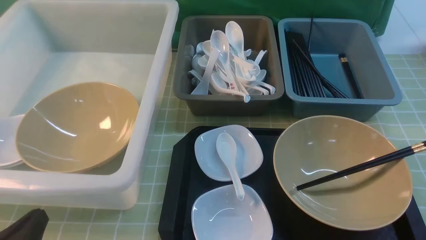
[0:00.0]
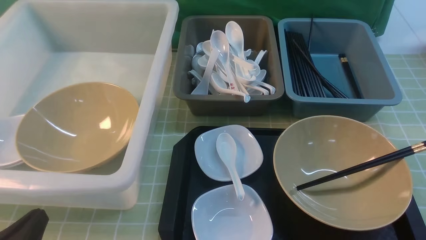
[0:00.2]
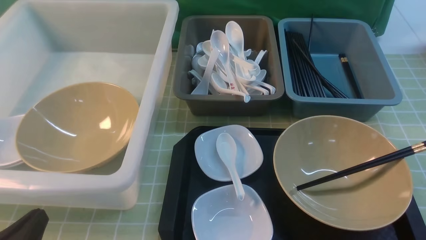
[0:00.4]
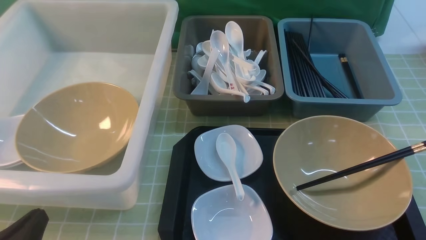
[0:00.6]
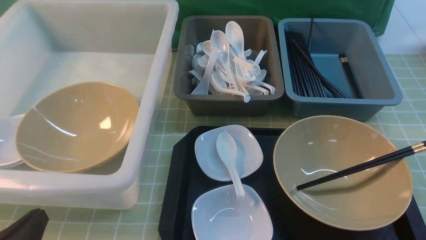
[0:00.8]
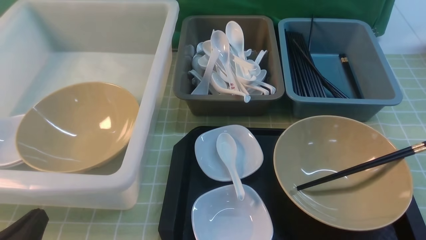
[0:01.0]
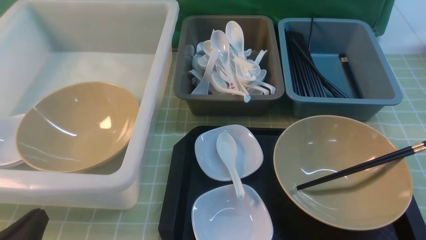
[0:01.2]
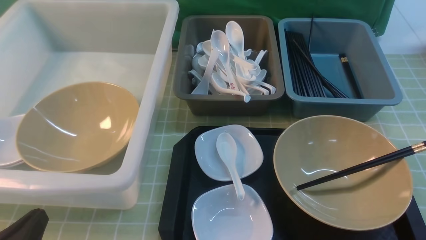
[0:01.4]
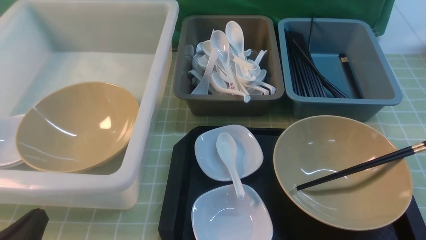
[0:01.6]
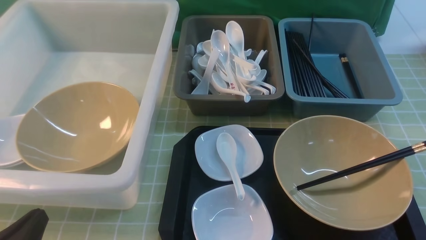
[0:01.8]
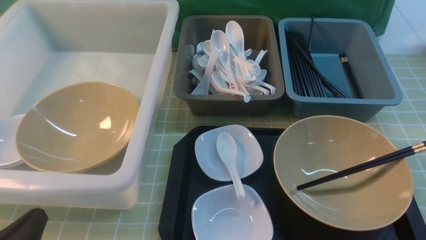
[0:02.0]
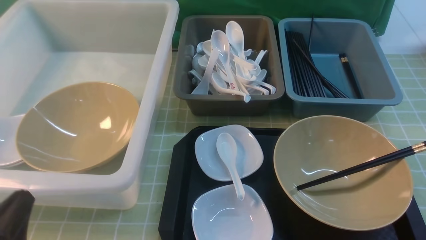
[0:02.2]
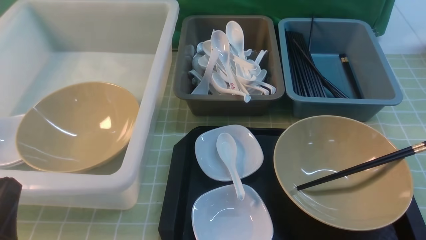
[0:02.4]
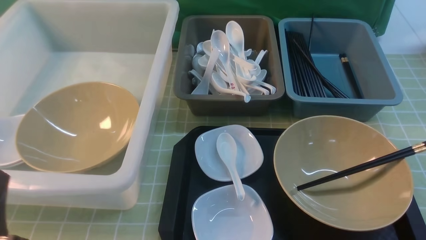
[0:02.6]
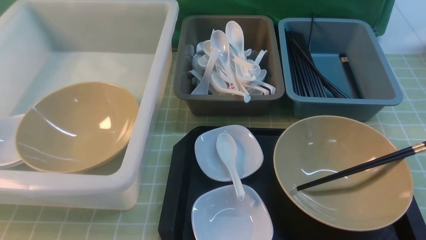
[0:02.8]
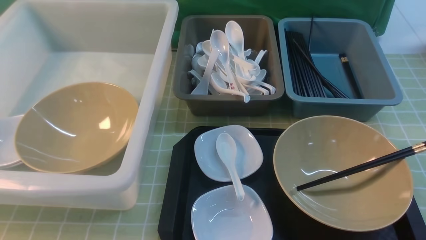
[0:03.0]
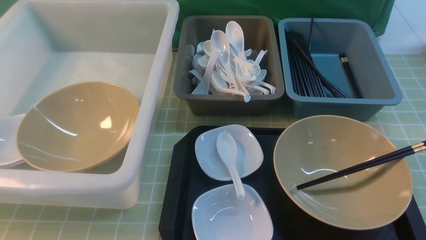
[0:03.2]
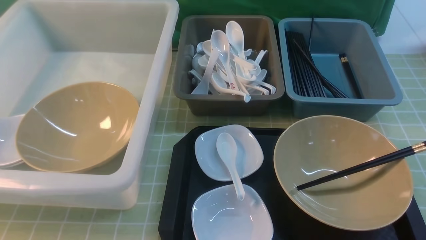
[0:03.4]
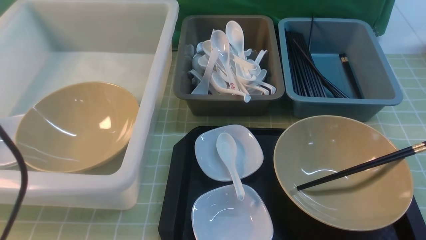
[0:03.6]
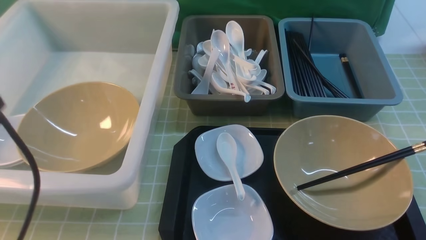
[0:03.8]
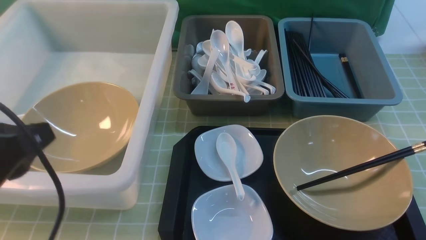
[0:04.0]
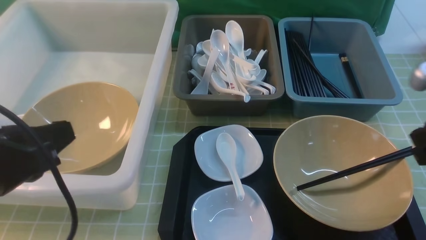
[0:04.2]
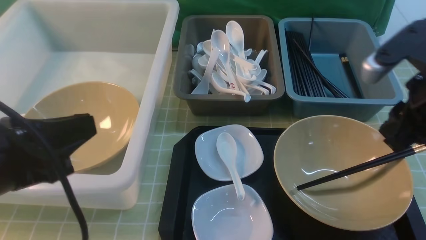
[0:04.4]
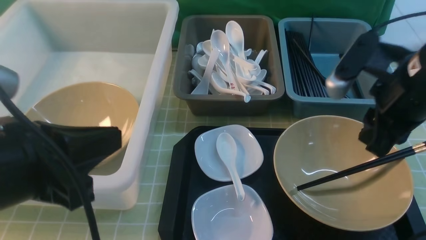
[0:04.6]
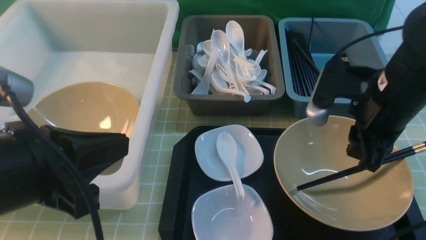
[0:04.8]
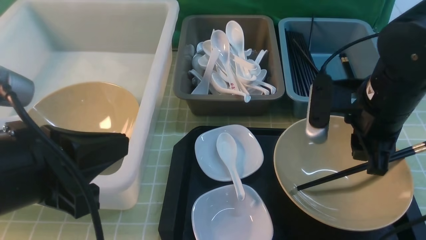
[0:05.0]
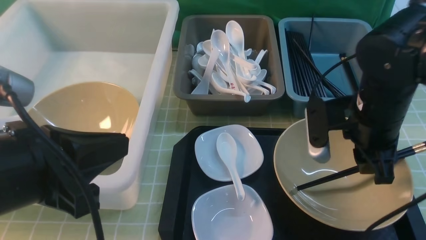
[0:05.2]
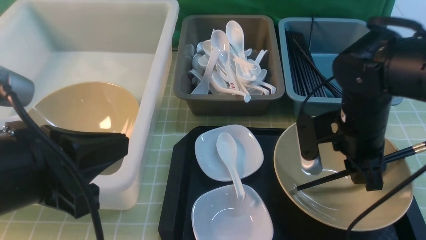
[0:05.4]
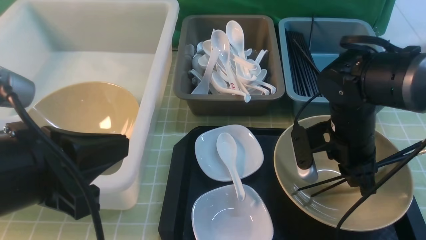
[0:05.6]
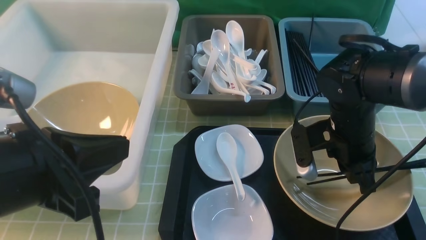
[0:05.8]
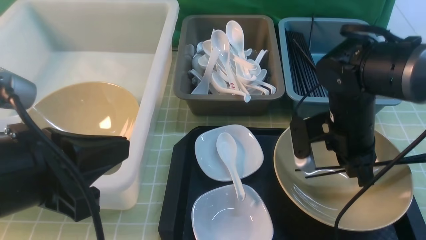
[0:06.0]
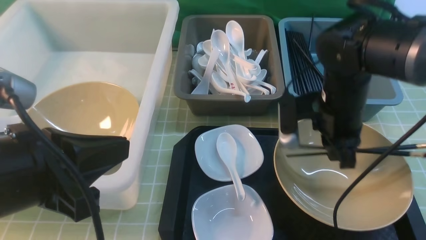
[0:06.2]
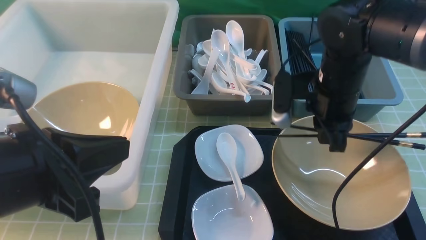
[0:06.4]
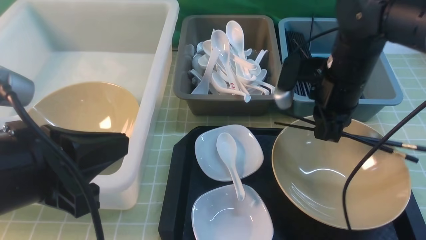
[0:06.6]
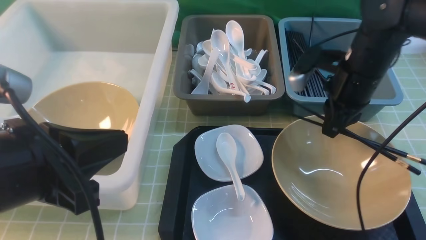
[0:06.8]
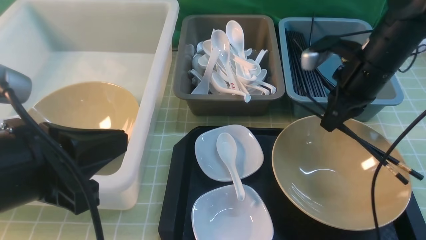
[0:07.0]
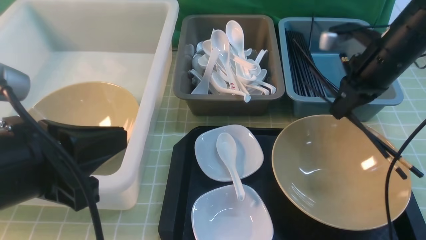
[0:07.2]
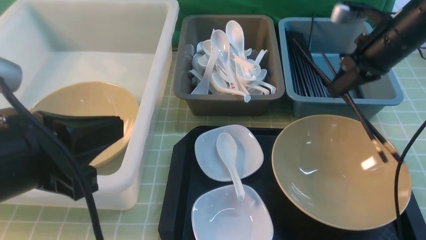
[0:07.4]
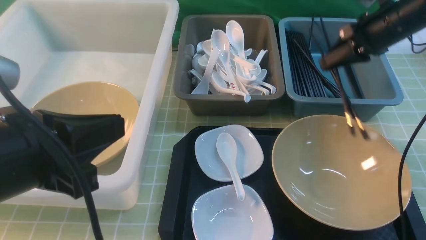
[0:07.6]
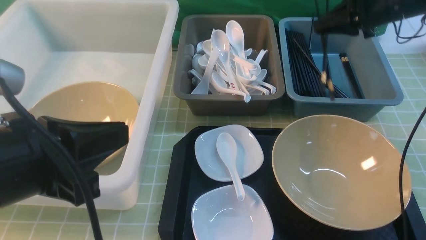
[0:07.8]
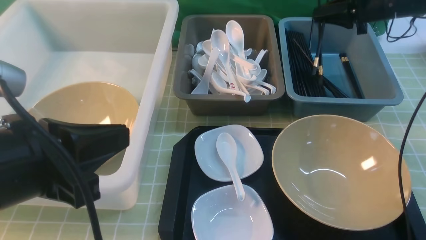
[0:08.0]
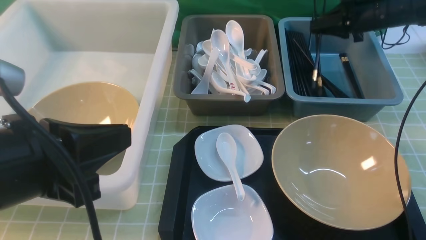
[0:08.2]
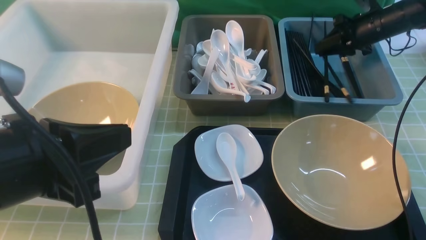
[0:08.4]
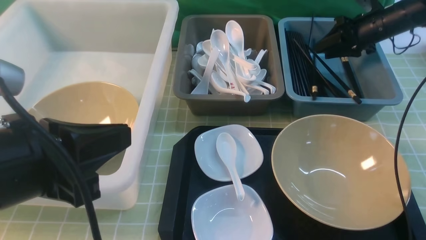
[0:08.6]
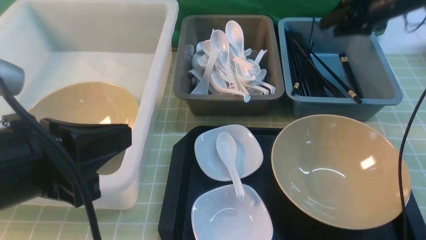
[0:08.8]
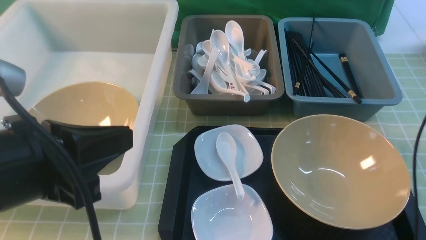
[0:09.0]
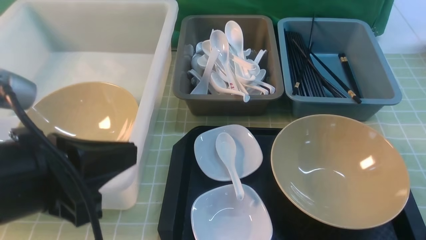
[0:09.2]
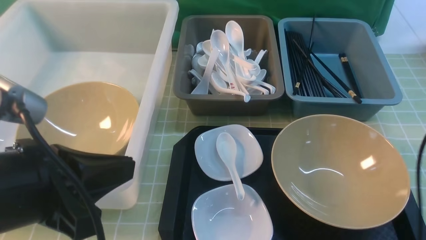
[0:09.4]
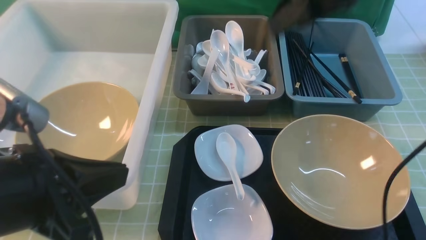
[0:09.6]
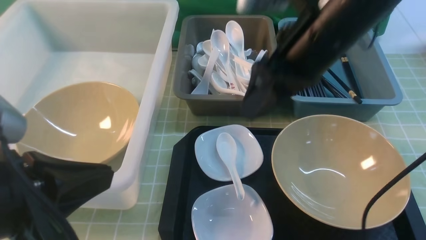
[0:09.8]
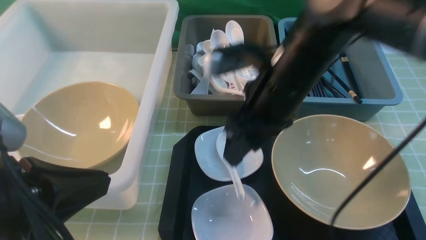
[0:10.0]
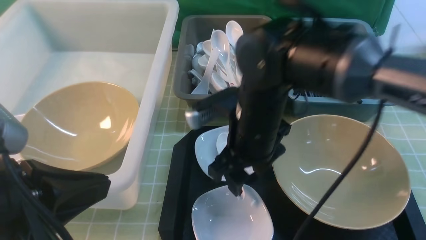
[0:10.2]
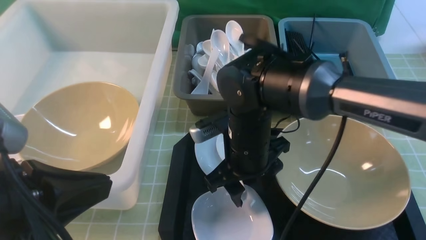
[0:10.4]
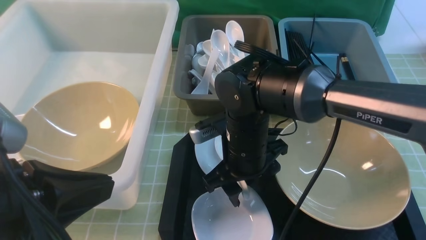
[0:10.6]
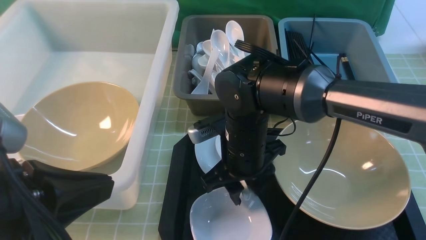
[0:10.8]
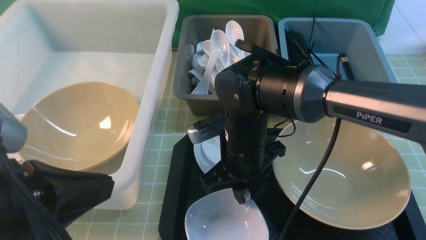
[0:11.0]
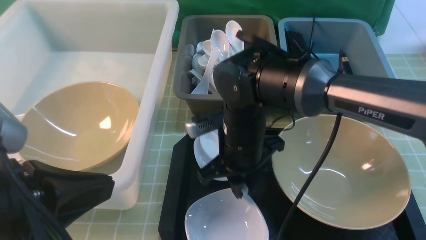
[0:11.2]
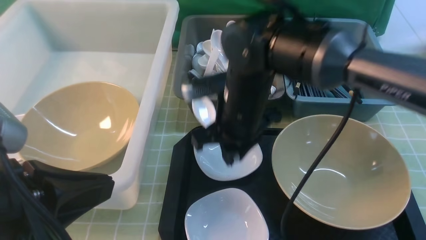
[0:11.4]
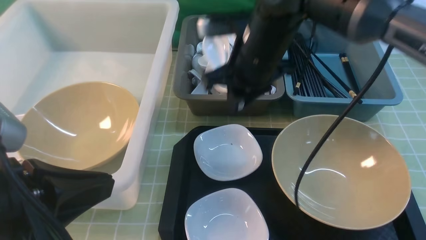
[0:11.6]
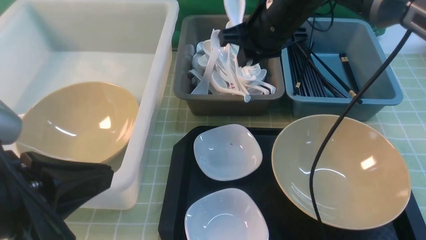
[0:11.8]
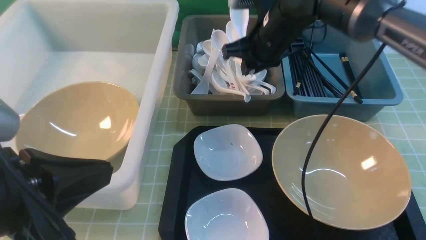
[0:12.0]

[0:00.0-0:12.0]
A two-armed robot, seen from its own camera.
Task of the whole recording: on green table put chopsticks spoon bowls plates into blue grey white boxes.
Step, 0:00.0 to 0:07.4: use the right arm to grab the chopsticks.
Step, 0:07.6 to 0:09.0: use the right arm to put the chopsticks into the small storage box on the right.
Step, 0:09.2 to 0:11.2: use the right arm to grab the soup spoon in the middle.
0:00.0 to 0:01.6: Both grippers stay put.
0:01.6 to 0:03.0: The left gripper goes about 15 cm upward.
0:03.0 to 0:04.4: The right gripper moves forward, about 20 cm. Meanwhile the left gripper heads forward and to the right, covering about 10 cm.
0:04.4 to 0:06.0: The right gripper shifts about 15 cm downward, forward and to the left, and closes up.
0:06.0 to 0:07.6: The right gripper moves forward, to the right and upward, some 20 cm.
0:07.6 to 0:09.0: The right gripper travels upward by roughly 10 cm, and opens.
0:09.0 to 0:10.4: The right gripper moves to the left, backward and downward, some 40 cm.
0:10.4 to 0:12.0: The right gripper is displaced forward, upward and to the right by some 15 cm, and closes.

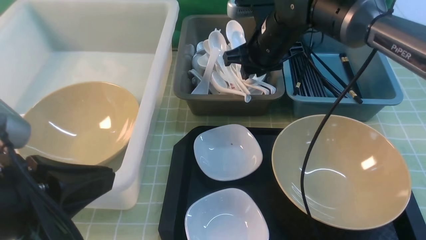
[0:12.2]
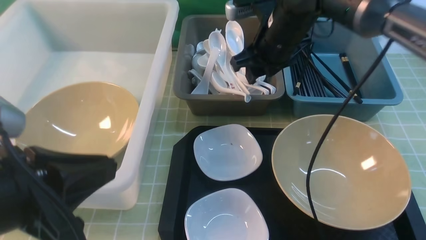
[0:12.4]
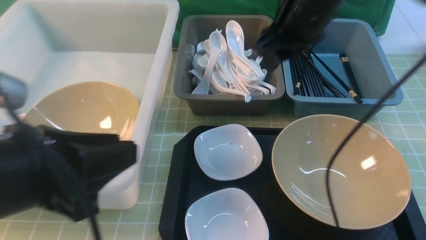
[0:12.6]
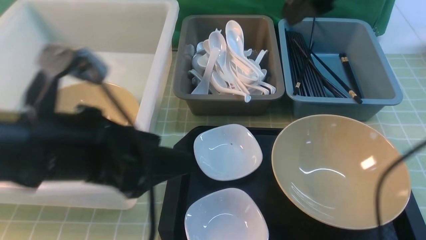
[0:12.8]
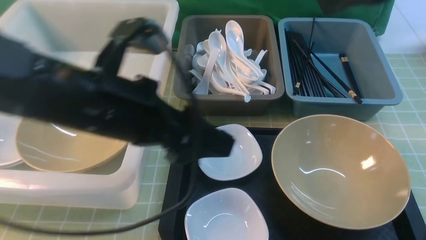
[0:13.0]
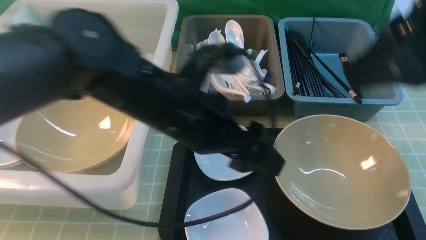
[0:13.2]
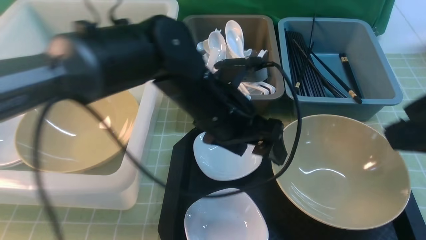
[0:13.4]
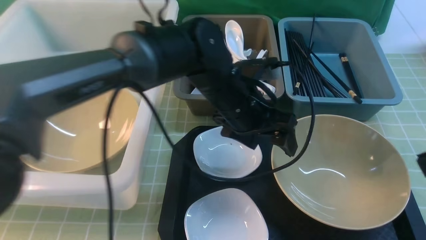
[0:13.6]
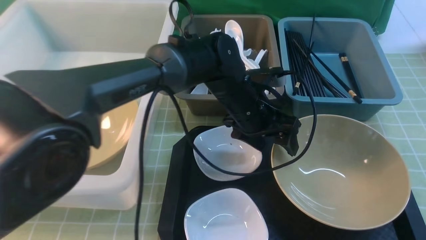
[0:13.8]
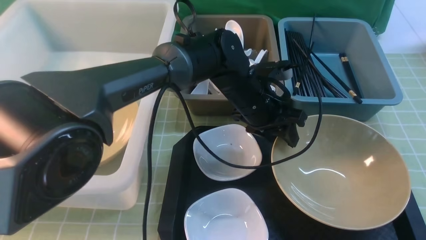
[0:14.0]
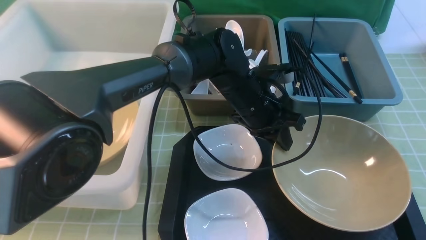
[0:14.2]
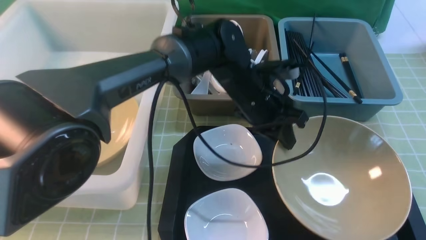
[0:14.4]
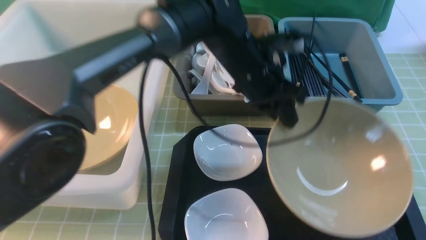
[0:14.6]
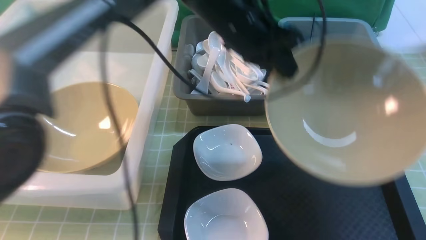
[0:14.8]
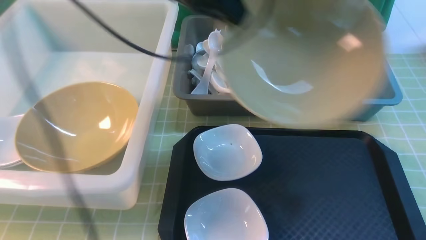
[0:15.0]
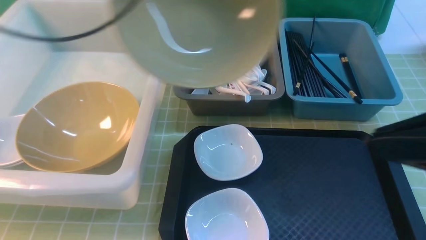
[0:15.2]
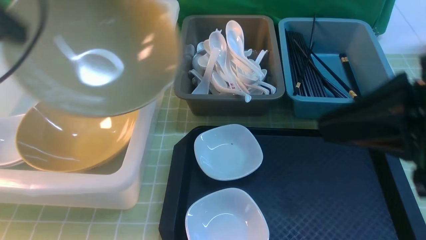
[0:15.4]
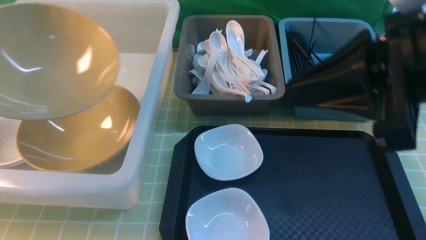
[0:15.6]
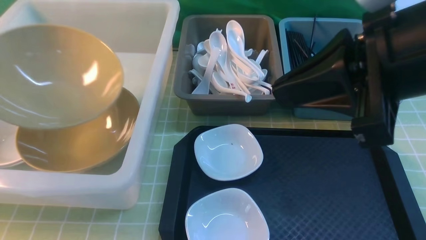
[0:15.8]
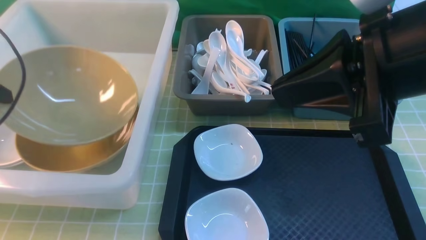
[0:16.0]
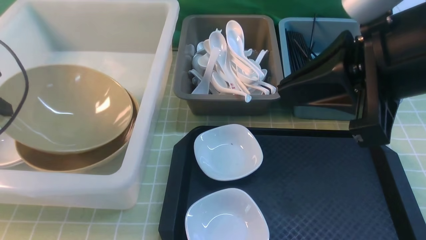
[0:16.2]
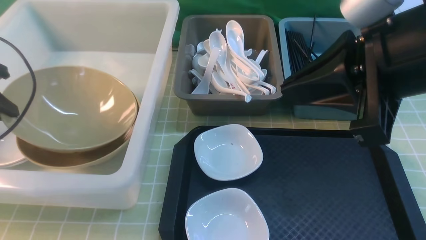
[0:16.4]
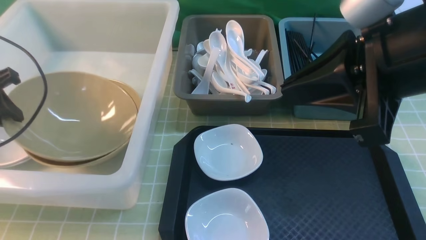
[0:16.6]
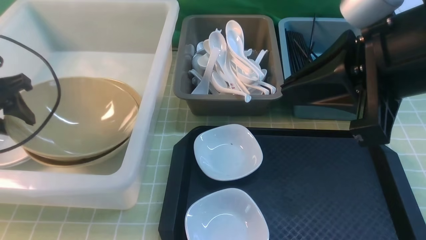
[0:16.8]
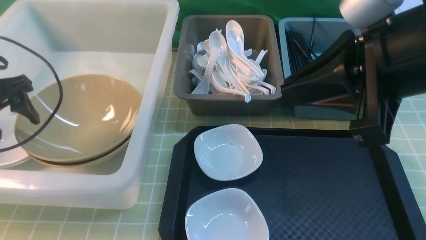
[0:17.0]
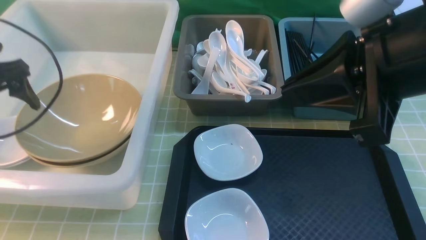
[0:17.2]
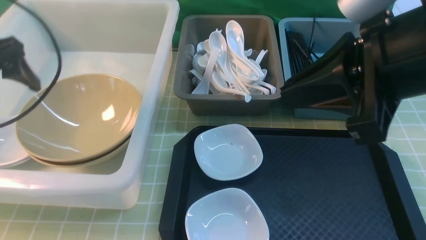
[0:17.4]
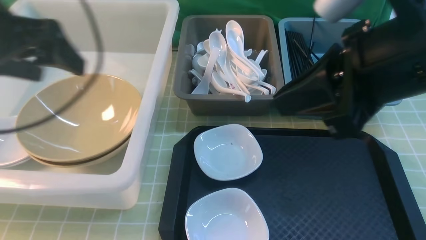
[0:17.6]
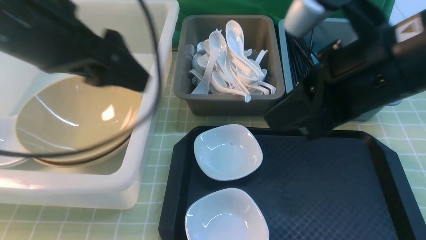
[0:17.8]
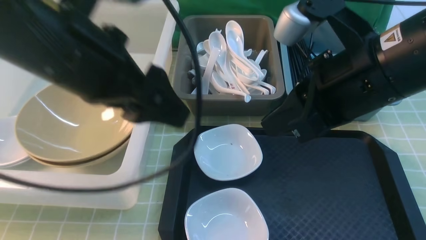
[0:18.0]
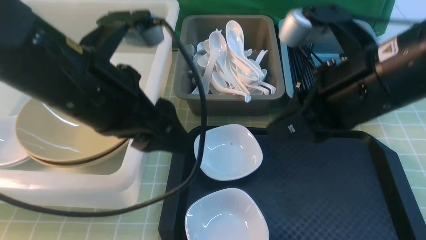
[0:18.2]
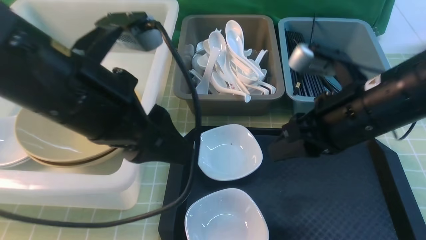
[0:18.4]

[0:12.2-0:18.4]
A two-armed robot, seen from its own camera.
Task of the whole recording: on green table put chopsticks spoon bowls plates into blue grey white boxes.
Step, 0:13.0 to 0:14.4: use the left arm to grab the yellow noodle bowl on the left.
Step, 0:14.6 to 0:17.2: use the left arm to put the noodle bowl into the large storage box on the left.
0:12.2 to 0:13.8: The left gripper shifts approximately 35 cm forward, to the right and downward, and opens its fingers, while the right gripper heads backward and to the right, covering approximately 35 cm, and closes.
0:13.8 to 0:15.4: The left gripper travels to the left and upward by approximately 40 cm, and closes up; the right gripper heads to the left and forward, covering about 10 cm.
0:15.4 to 0:16.8: The left gripper goes approximately 15 cm downward, and opens its fingers.
0:16.8 to 0:18.4: The right gripper travels downward and forward by about 15 cm, and opens. Meanwhile the left gripper moves to the right, backward and upward, roughly 25 cm, and opens, then closes again.
